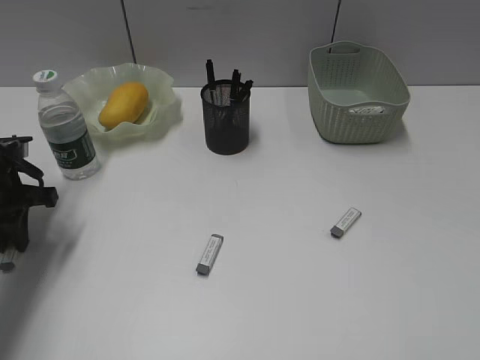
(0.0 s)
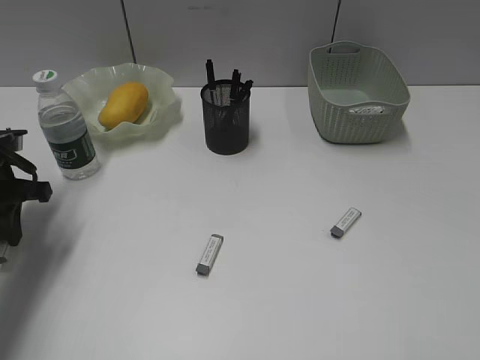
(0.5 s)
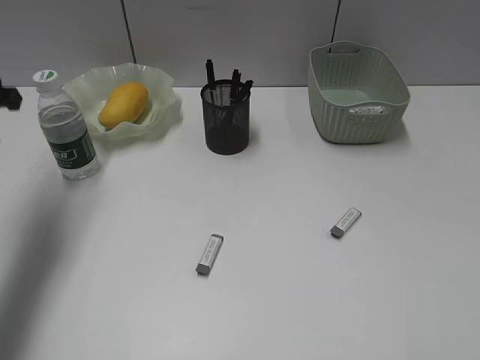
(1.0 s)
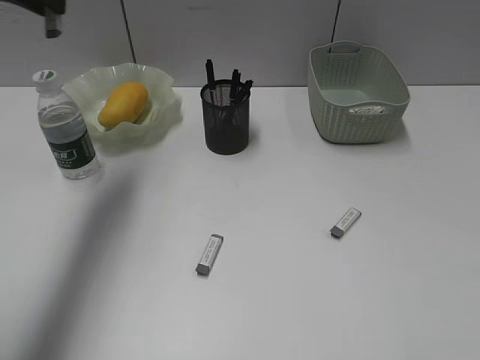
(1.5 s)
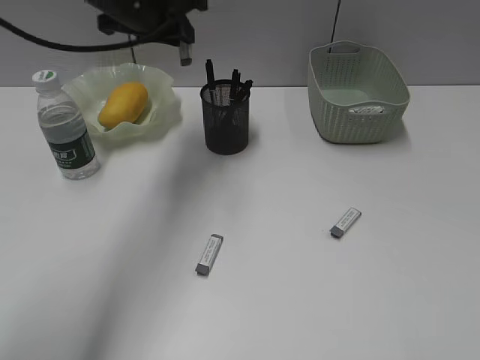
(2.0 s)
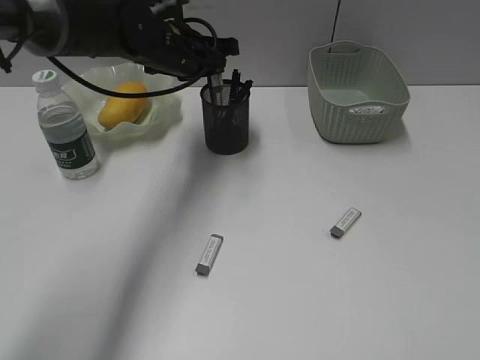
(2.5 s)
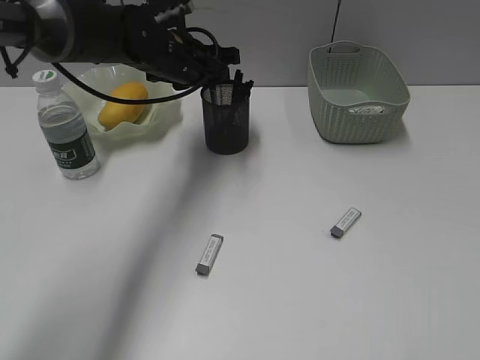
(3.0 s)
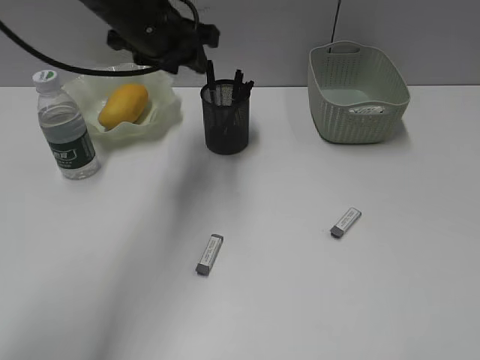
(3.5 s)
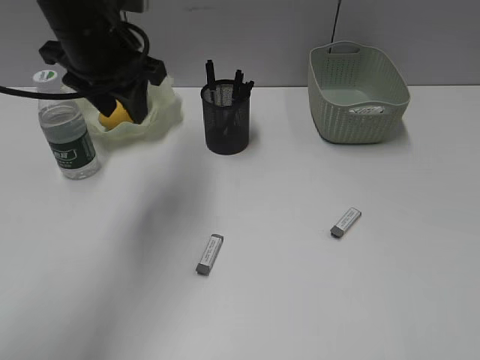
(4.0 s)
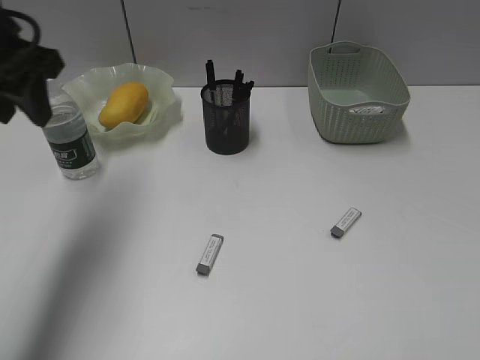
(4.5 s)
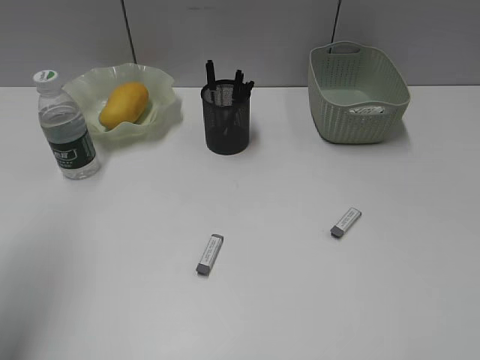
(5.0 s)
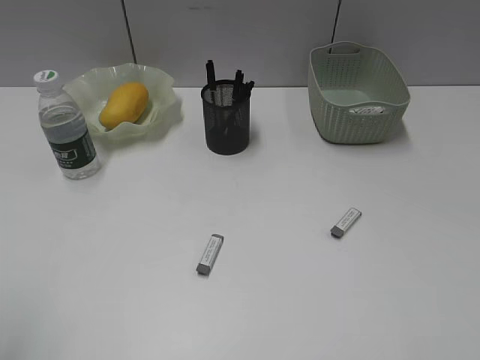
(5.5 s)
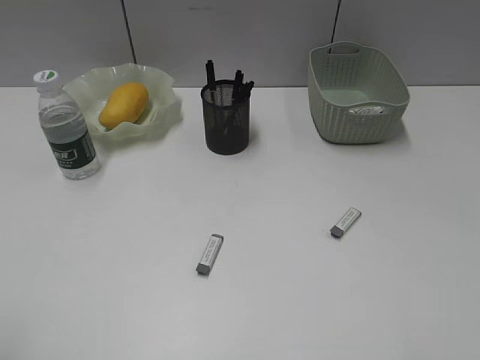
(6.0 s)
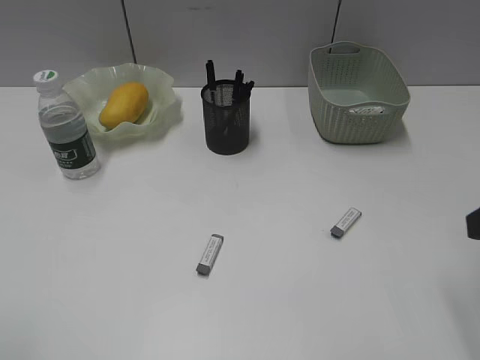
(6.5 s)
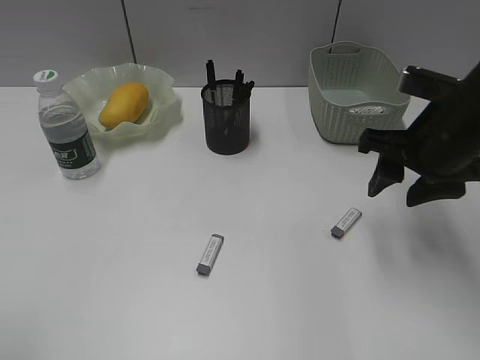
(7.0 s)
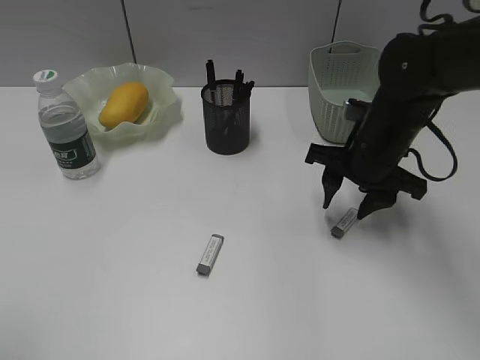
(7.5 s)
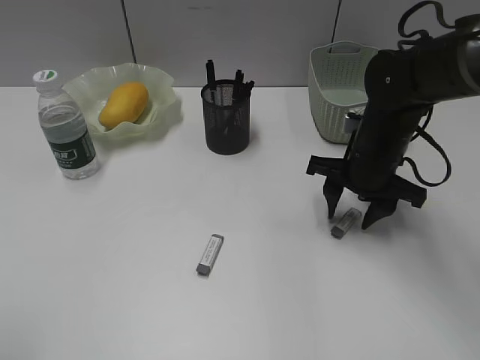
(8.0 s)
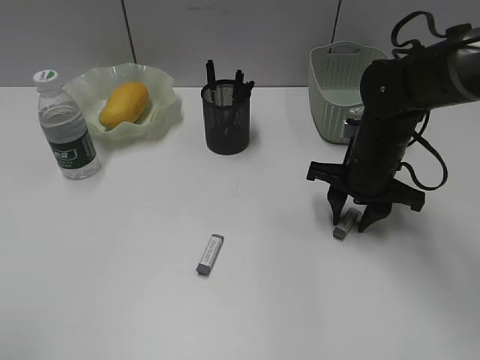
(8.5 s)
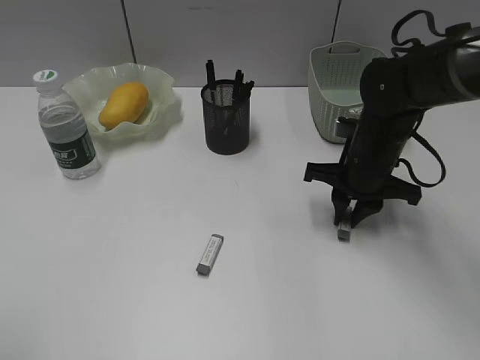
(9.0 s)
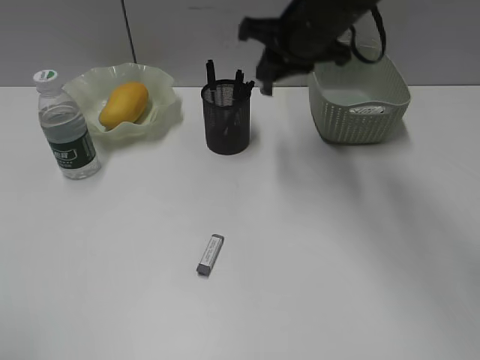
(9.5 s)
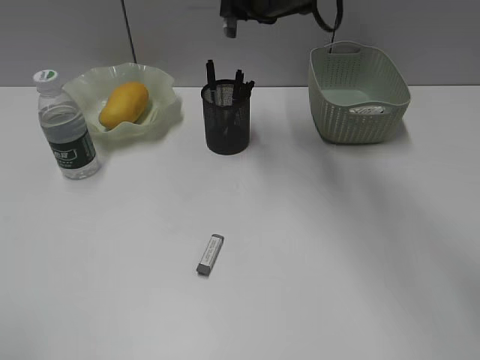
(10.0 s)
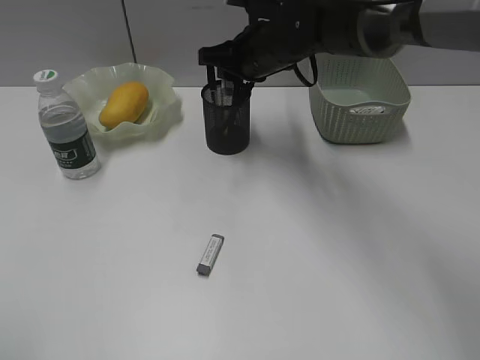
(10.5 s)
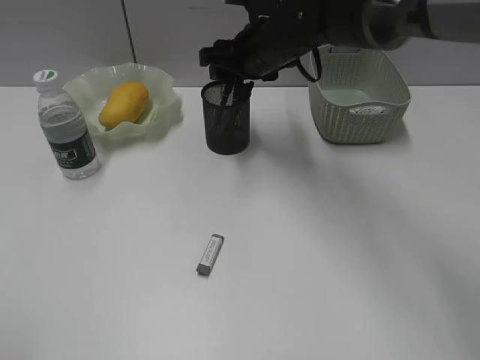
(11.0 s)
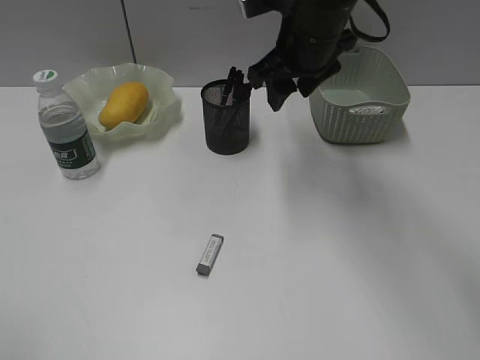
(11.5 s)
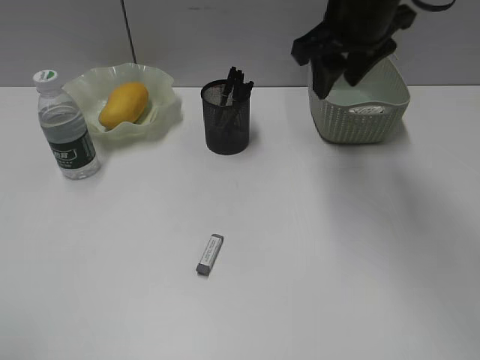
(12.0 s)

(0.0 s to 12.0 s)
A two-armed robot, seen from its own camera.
Step, 0.5 s - 3.0 s: Place the eraser in pen holder with left gripper.
Step, 3.5 s - 8.5 s: Grasp the eraser with right gripper.
Step, 9.0 s - 10.5 s: Place the eraser in pen holder with right gripper.
0.0 s - 2.0 s: The left gripper moves to the right, upward and forward, roughly 25 cm.
2.0 s - 4.0 s: The left gripper goes about 5 cm backward, reaches about 10 cm downward, then returns, and opens its fingers.
4.0 s - 6.0 s: The left gripper shifts approximately 35 cm backward and to the left.
6.0 s - 8.0 s: The right gripper moves forward, downward and to the left, some 35 cm.
8.0 s - 10.0 s: The right gripper is displaced upward, to the left and forward by about 20 cm, and closes up.
10.0 s - 12.0 s: The right gripper travels to the right and backward by roughly 10 cm, travels downward and back again, roughly 10 cm each way, and opens its fingers.

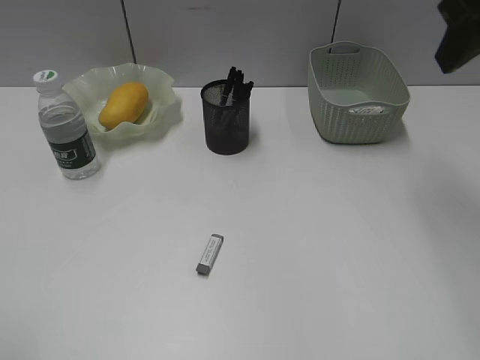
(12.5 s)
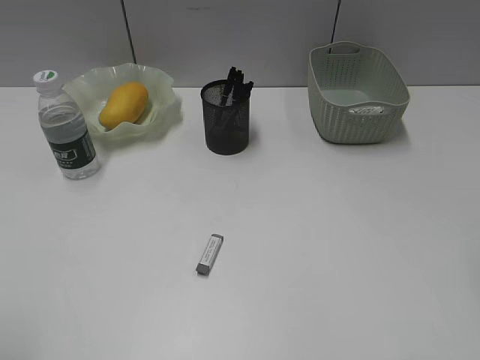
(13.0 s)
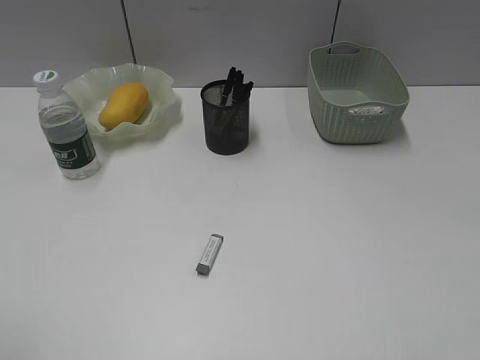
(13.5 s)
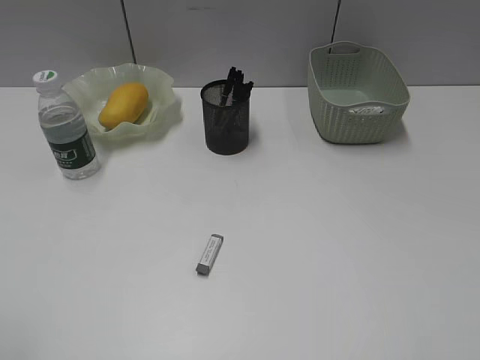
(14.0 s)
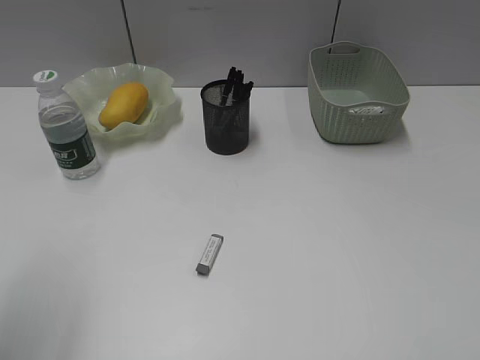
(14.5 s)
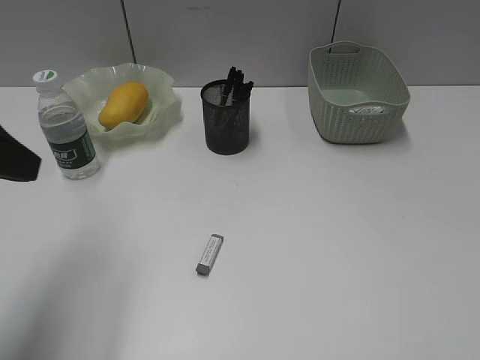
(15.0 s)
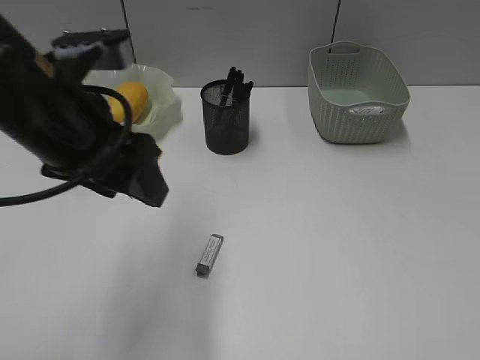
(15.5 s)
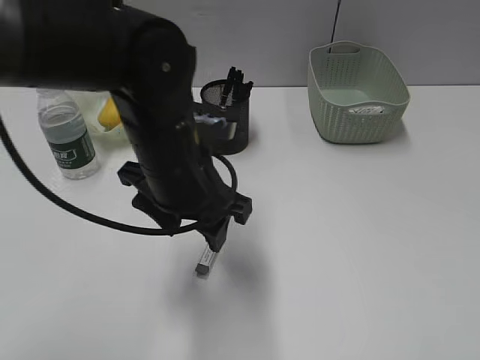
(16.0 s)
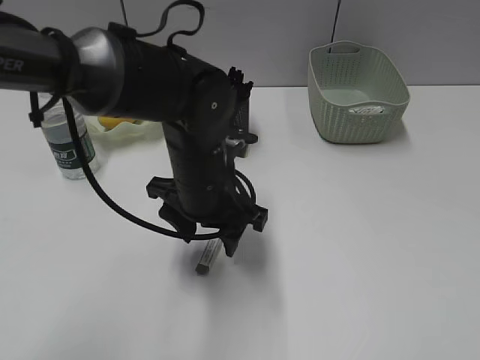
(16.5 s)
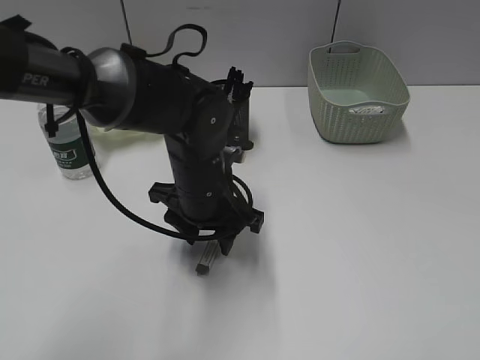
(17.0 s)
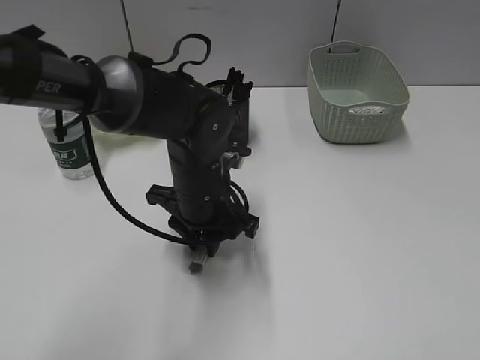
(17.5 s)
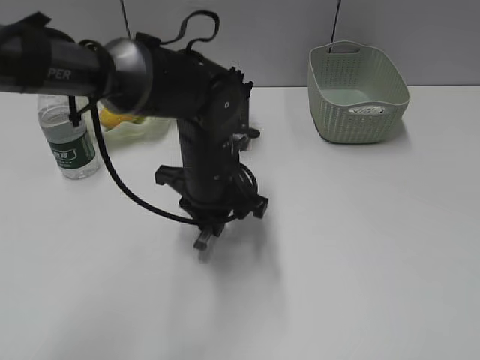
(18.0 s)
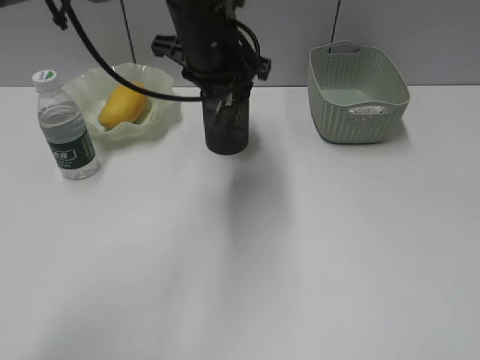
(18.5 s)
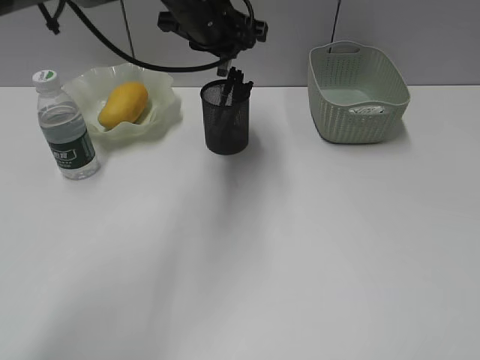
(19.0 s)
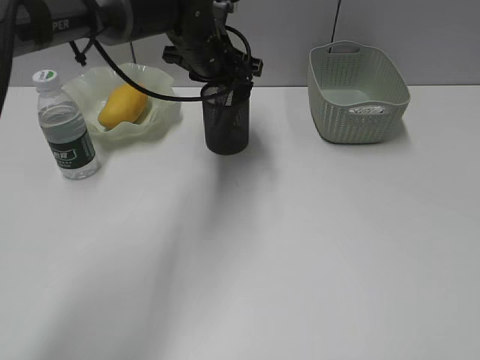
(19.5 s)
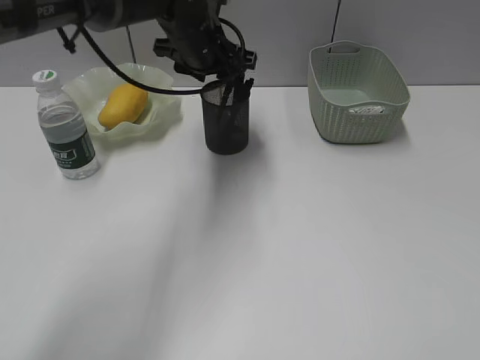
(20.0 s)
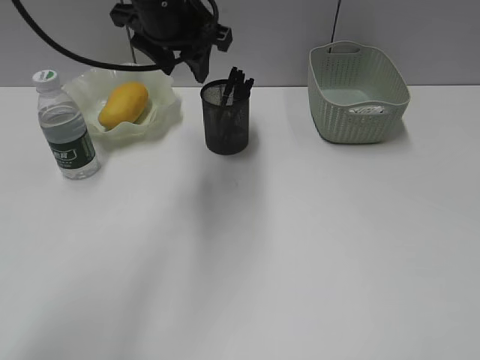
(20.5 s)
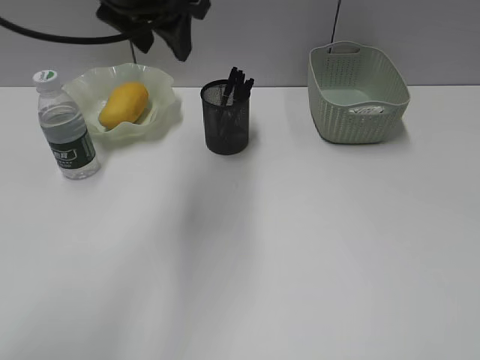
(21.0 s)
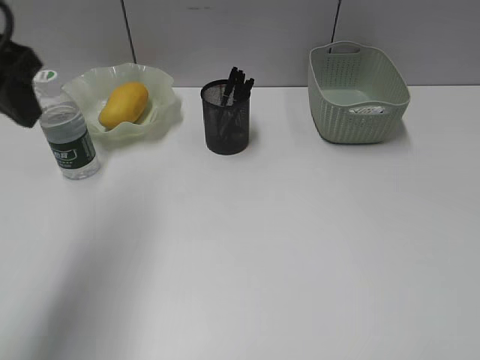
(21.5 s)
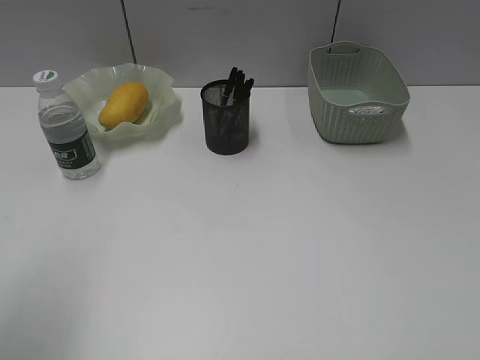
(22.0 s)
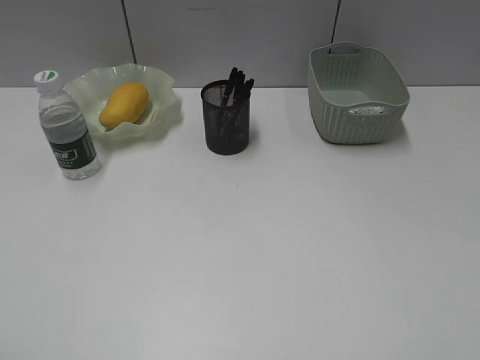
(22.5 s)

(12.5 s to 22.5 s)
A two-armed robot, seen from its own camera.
Step, 12.5 s - 17.5 s: Grasp the eraser with left gripper.
Step, 18.0 s - 20.0 s: Place the eraser in pen holder with left gripper.
12.5 s - 14.5 s: The left gripper shifts about 5 cm forward; the right gripper moves backward, about 30 cm.
14.5 s - 16.5 s: The left gripper heads to the right, forward and downward, covering some 35 cm.
16.5 s - 18.5 s: The left gripper is displaced upward and forward by some 15 cm, and closes up.
18.5 s - 20.5 s: The left gripper changes place by some 5 cm, and opens up.
20.5 s - 22.5 s: The left gripper heads backward and to the left, covering roughly 50 cm.
